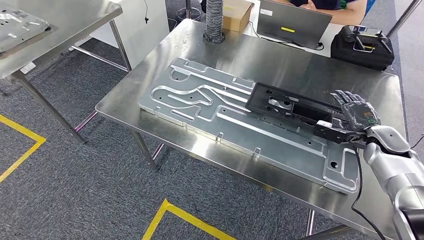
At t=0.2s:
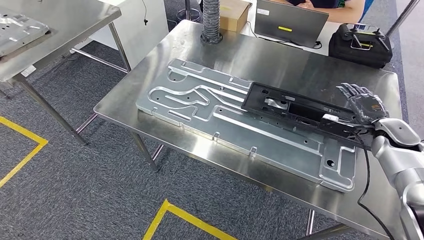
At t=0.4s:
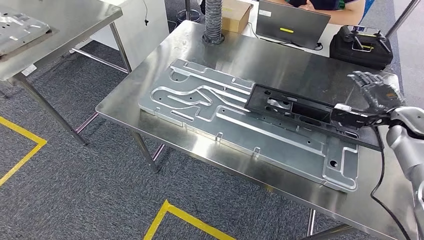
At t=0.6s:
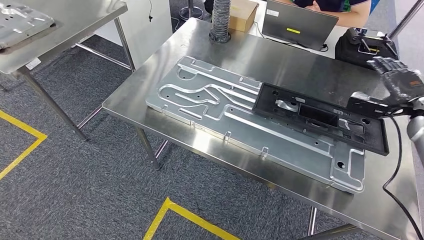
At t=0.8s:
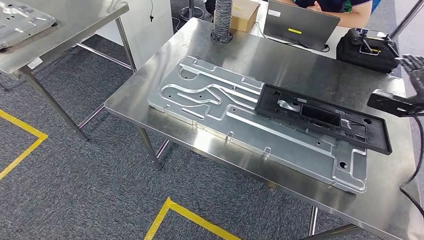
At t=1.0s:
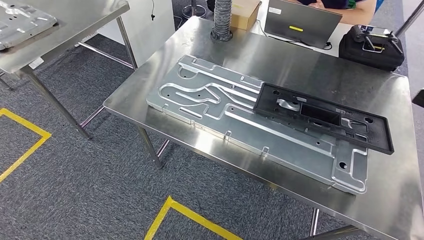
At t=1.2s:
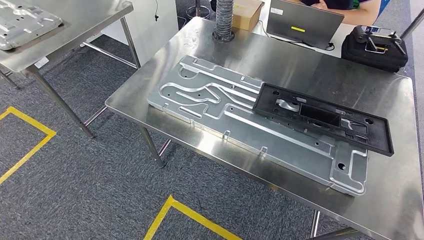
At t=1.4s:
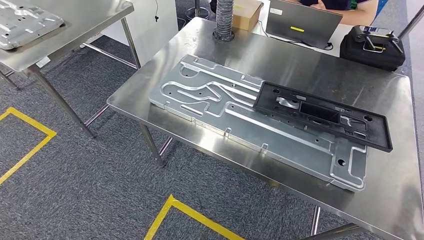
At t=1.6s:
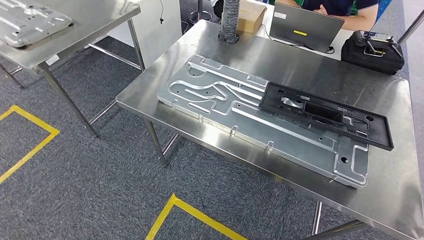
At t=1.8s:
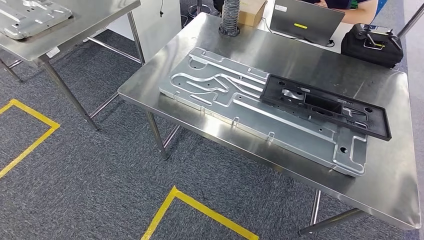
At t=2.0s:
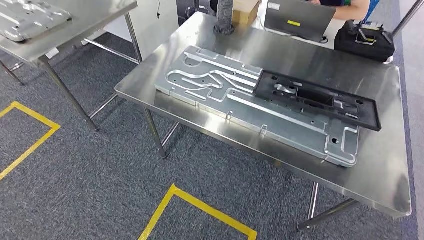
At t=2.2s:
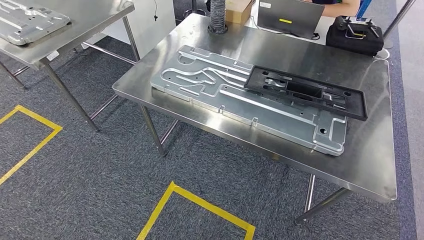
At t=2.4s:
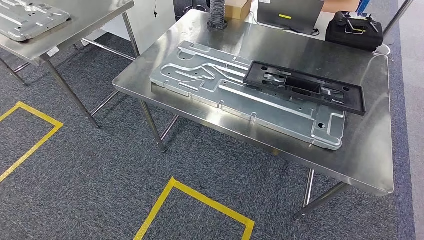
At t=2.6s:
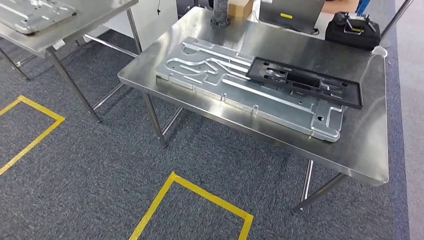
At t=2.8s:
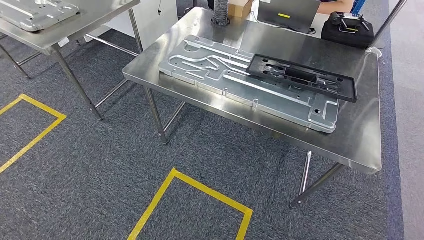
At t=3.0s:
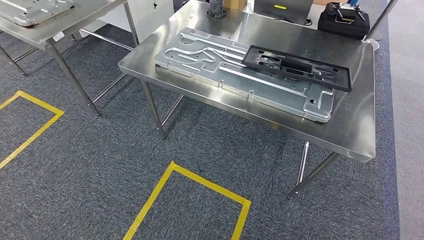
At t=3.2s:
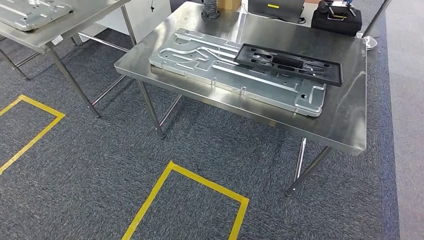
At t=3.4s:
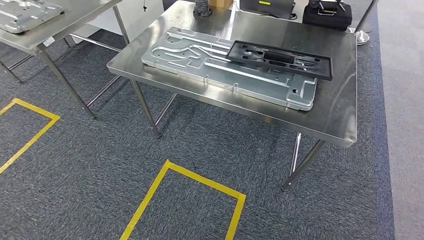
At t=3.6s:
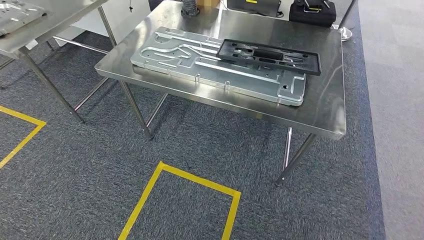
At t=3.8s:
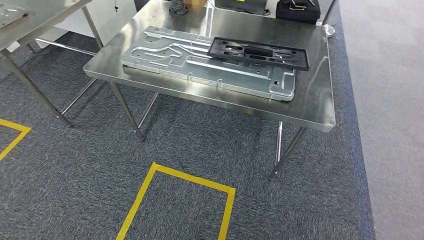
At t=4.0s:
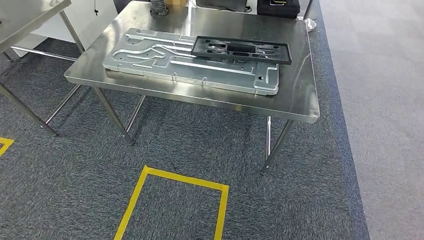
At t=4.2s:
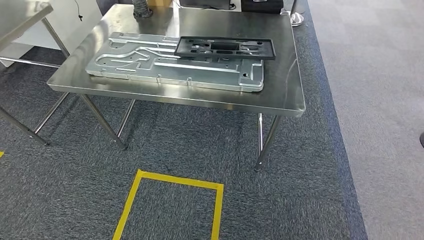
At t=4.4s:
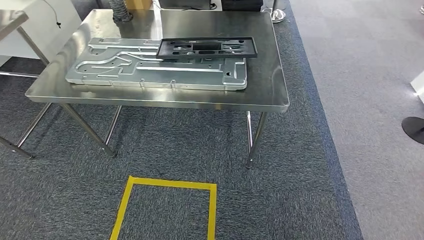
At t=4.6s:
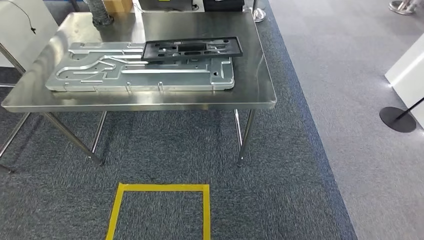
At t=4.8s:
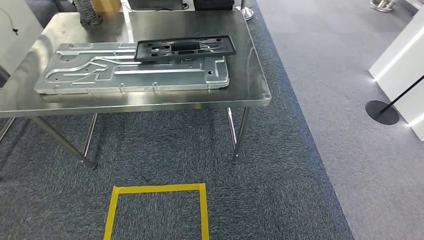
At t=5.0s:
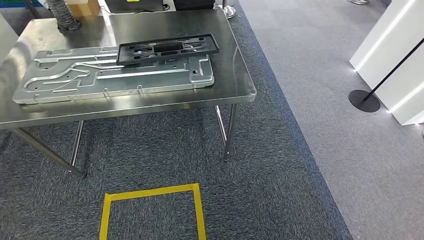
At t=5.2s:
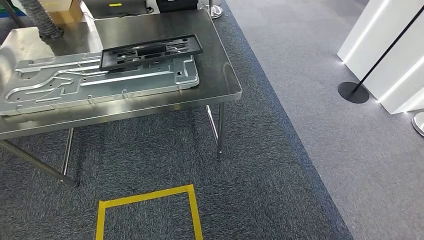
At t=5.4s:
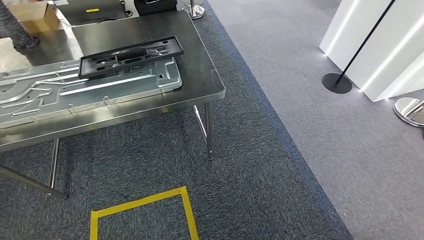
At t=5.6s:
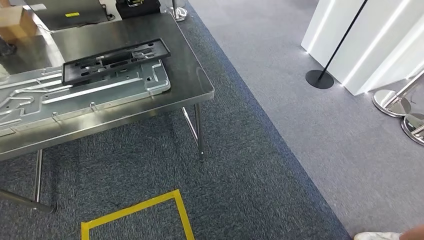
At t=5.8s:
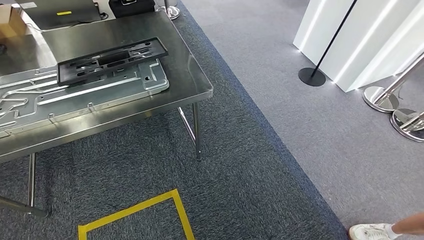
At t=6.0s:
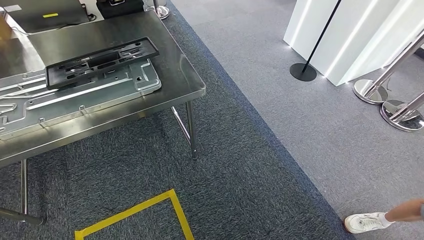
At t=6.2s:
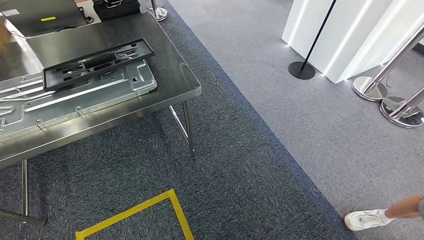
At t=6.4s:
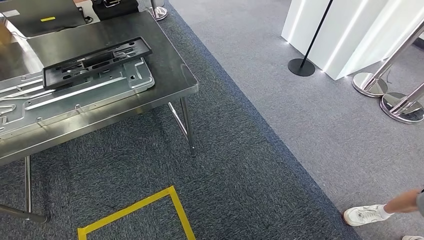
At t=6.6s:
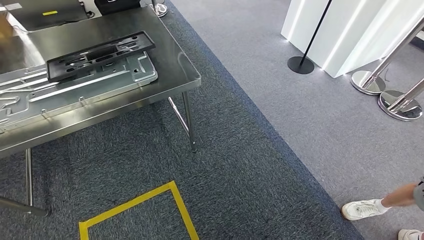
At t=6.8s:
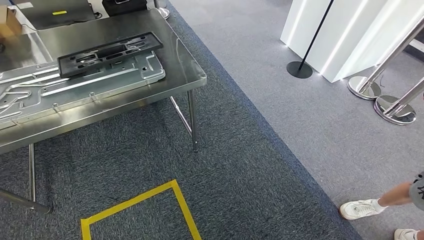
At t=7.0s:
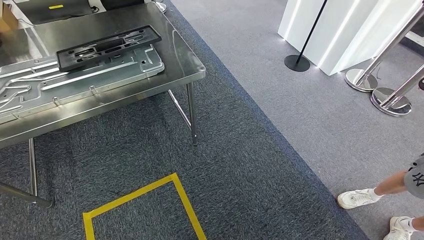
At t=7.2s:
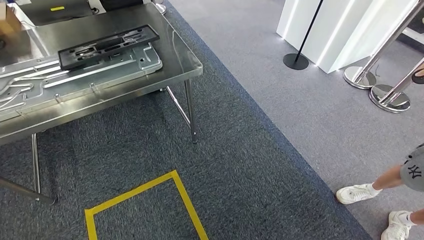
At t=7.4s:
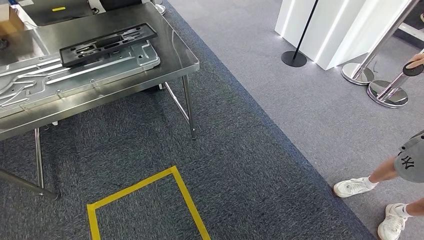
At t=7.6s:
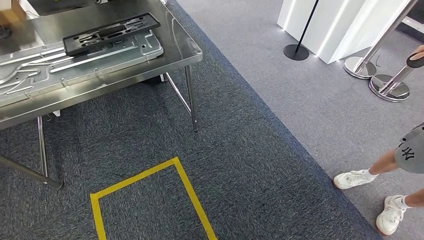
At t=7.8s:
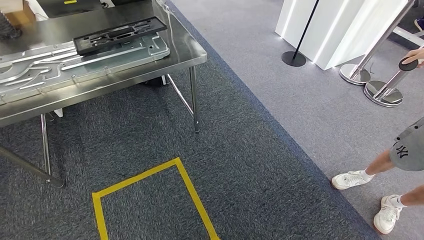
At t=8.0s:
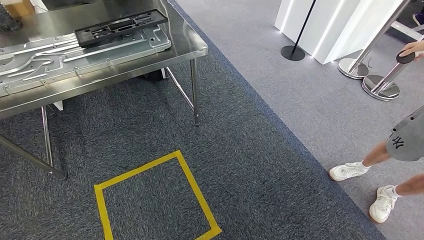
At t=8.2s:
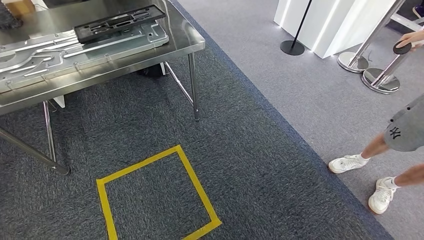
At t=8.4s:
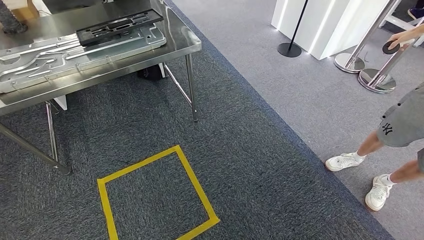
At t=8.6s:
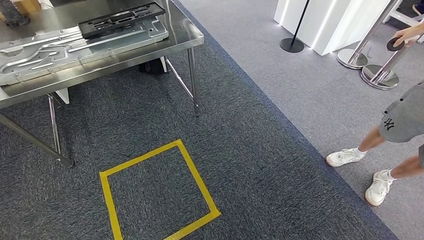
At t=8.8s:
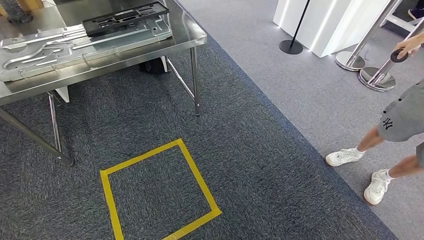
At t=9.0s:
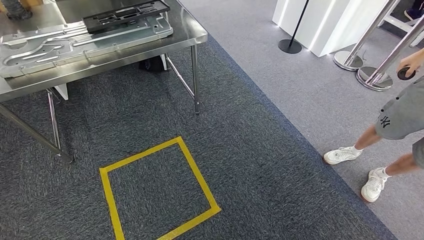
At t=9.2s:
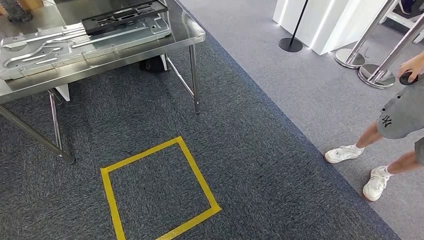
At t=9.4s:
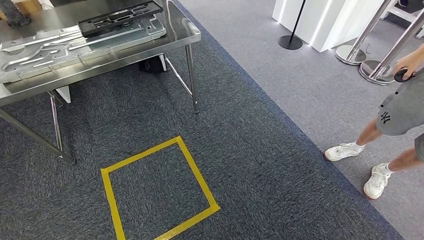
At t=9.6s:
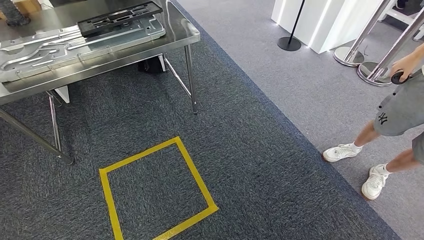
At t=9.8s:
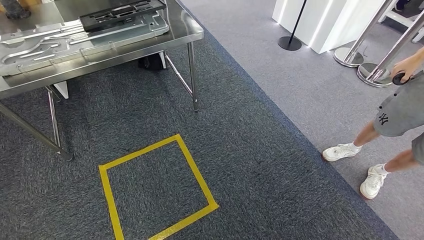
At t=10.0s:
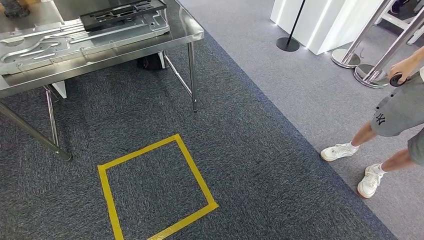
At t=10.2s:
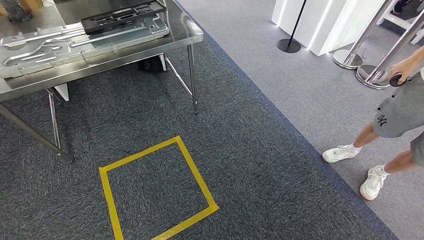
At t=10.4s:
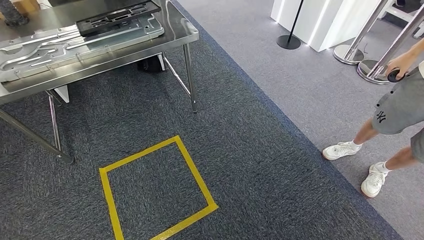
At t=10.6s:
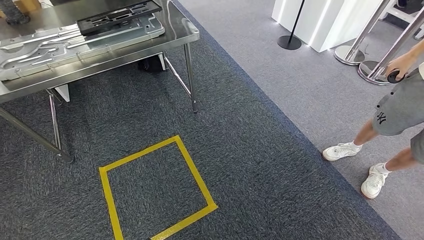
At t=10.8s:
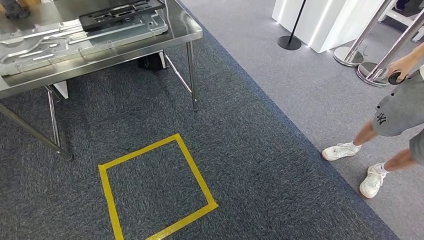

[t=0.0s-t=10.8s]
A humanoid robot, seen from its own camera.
Step, t=1.6s to t=10.6s: Move to the initial position of the shelf.
t=9.2s to t=10.8s: The right hand moves to the left, about 10 cm.
